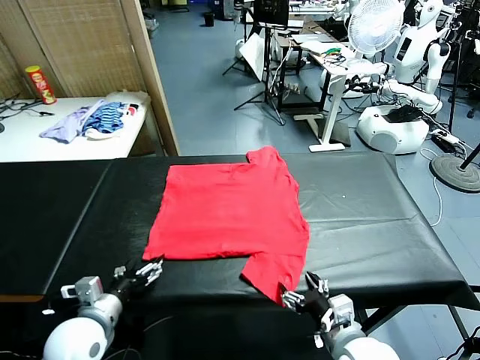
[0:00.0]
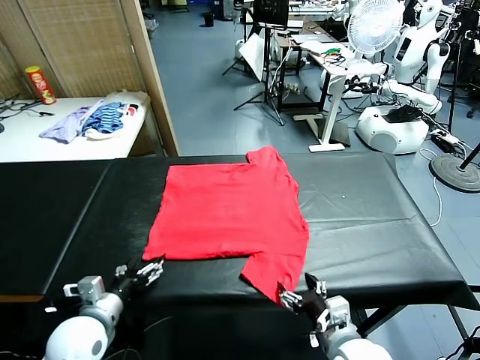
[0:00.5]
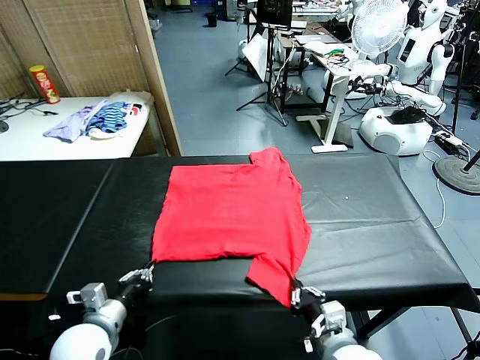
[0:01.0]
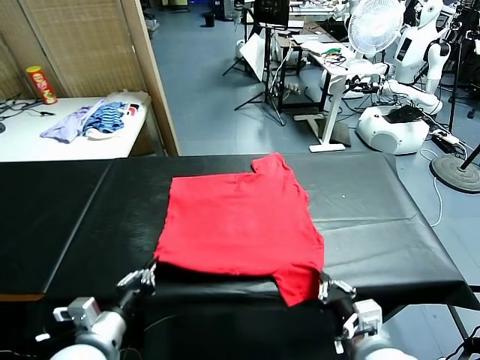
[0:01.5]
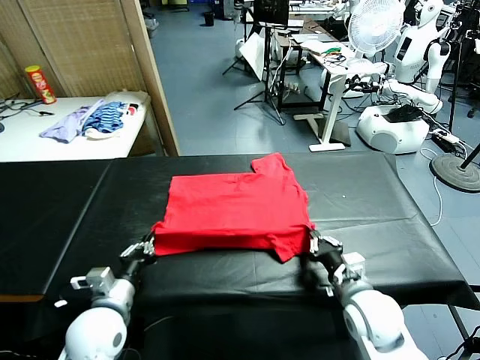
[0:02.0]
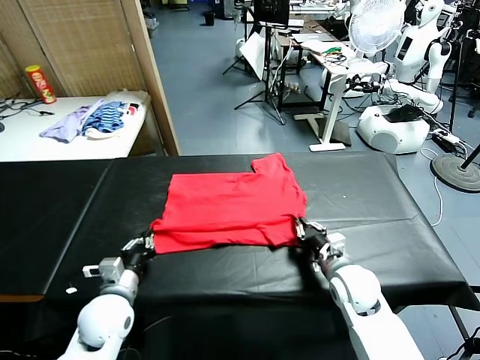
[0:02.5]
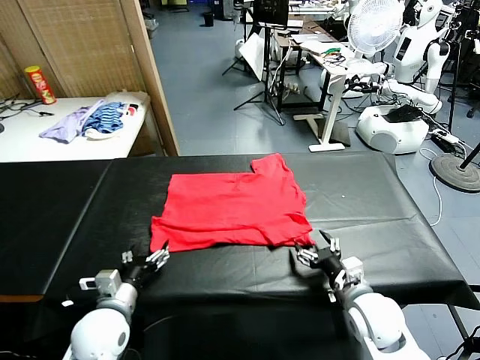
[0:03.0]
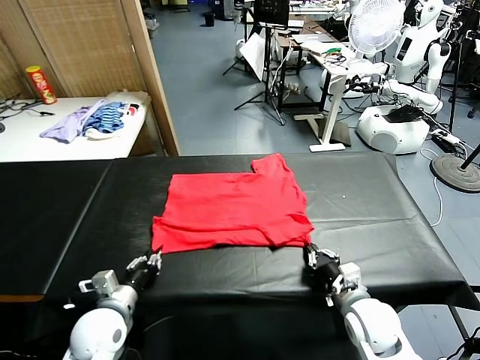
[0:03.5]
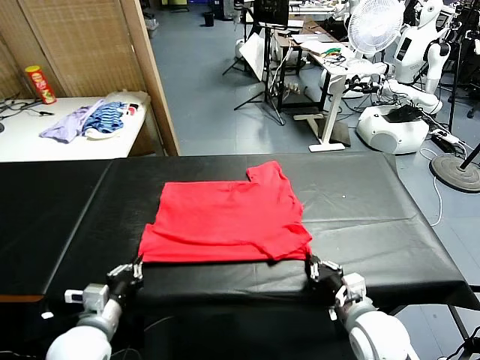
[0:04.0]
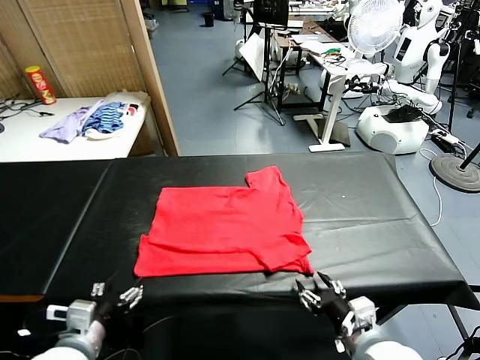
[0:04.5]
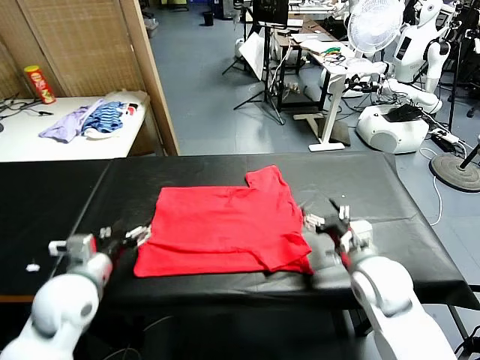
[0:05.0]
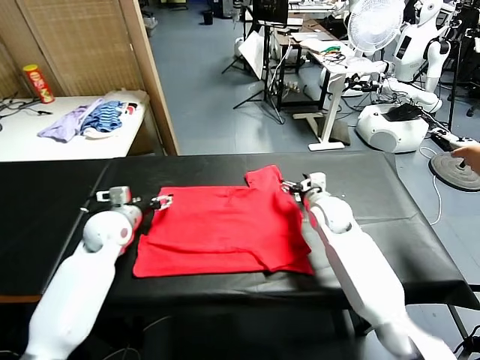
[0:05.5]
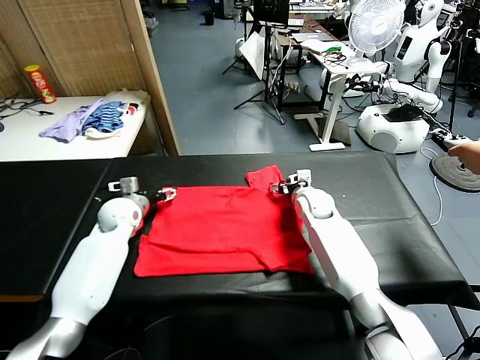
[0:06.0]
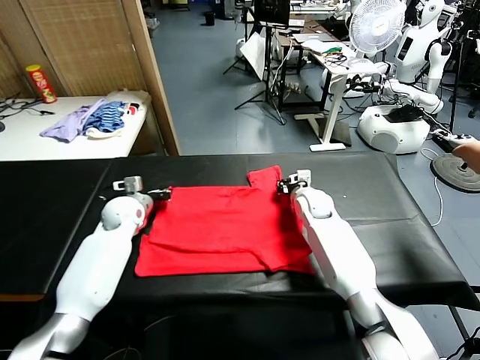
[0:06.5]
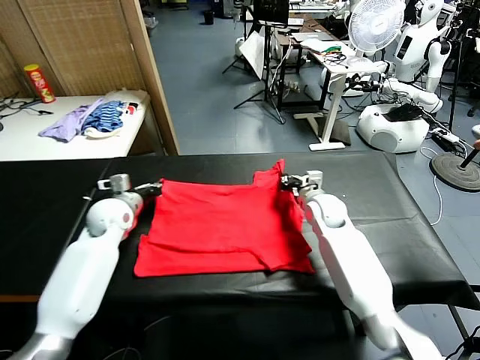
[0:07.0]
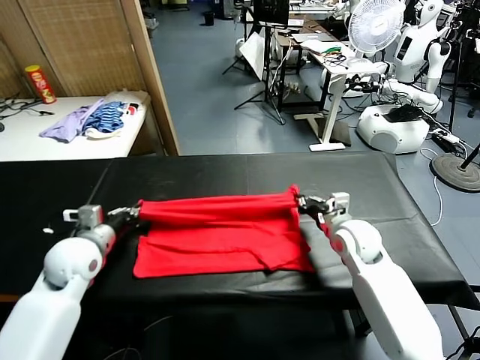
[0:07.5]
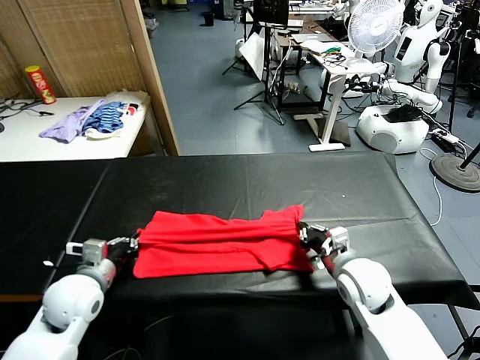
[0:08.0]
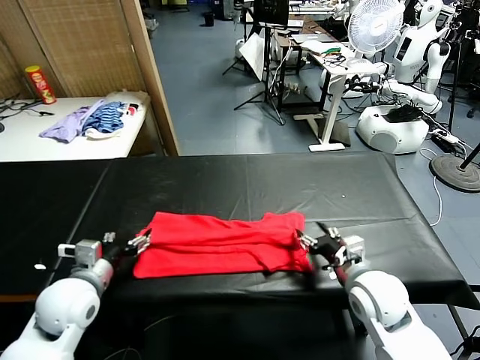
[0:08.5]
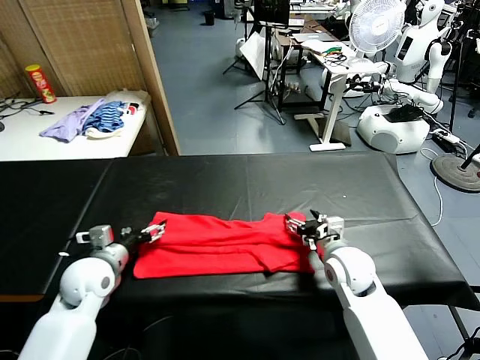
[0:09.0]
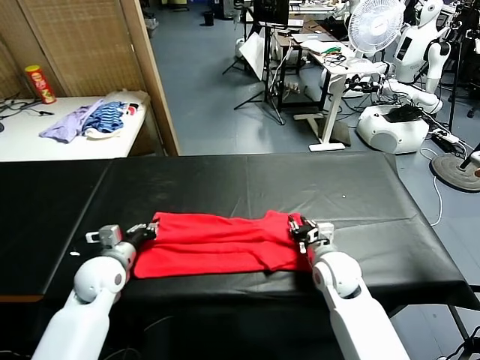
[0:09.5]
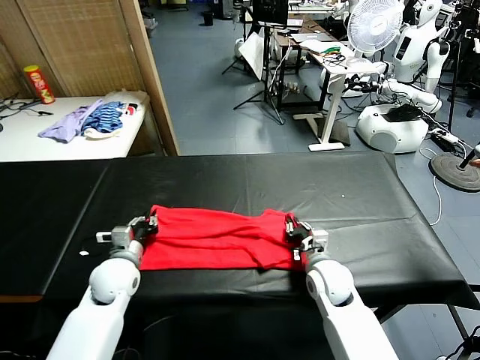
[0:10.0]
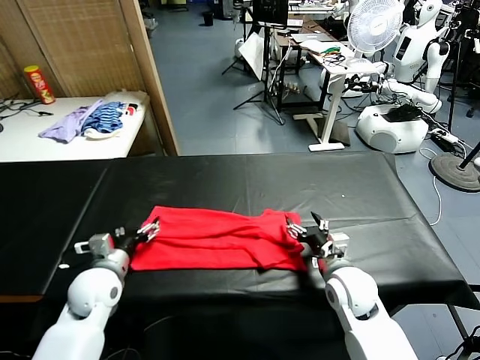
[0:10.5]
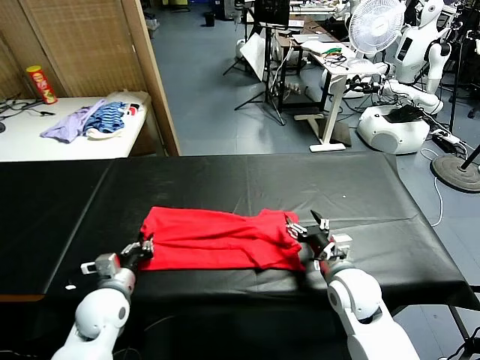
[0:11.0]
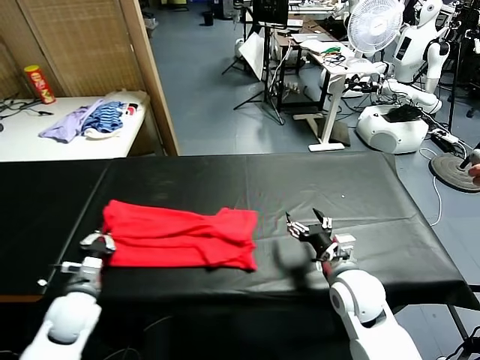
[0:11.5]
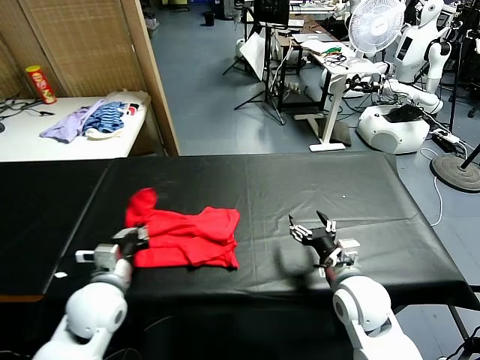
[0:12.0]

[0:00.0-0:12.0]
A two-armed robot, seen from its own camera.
Task of the whole recording: fold and organize the clothes.
Step, 0.0 to 1.0 s: use both grippers simultaneously to clamp the lower edge of the clothing fabric.
Step, 1.5 to 2.5 s: use both grippers to drag the lower edge of the fabric forward and fold it over the upper edge.
Step, 3.0 to 4.0 s: Drag the clothes downward with both gripper.
Step, 4.5 to 6.5 s: use both grippers simultaneously to clamp the upper edge of the clothing fabric.
Step, 7.0 to 8.0 s: use both grippers to drag the upper edge of the fabric backward and fold it over the lower edge.
Step, 8.5 to 11.0 s: use the left gripper to clamp the left edge of the fabric.
2.0 to 4.0 s: The left gripper shifts approximately 5 cm backward, and opens and closes again, while the right gripper moves backward, some 10 cm, and opens, then closes once more.
4.0 to 6.0 s: The grippers both shift forward by some 35 cm. The right gripper opens up; the left gripper opens its fingers.
6.0 to 8.0 s: The grippers both shift backward by some 25 cm. The right gripper closes. Meanwhile the left gripper closes up.
8.0 to 10.0 s: The left gripper travels forward and downward by some 10 cm, and opens, then closes again, while the right gripper heads downward, covering some 5 cm, and opens its fingers.
10.0 to 12.0 s: Both grippers travel together backward and upward, some 10 cm. The left gripper goes to the left and returns, roughly 10 cm each way, and opens and closes again. The right gripper opens.

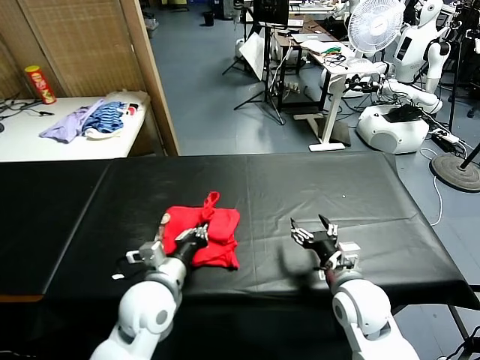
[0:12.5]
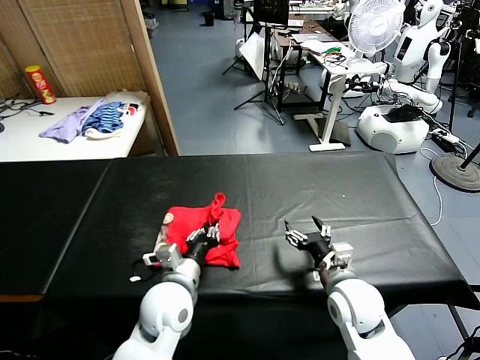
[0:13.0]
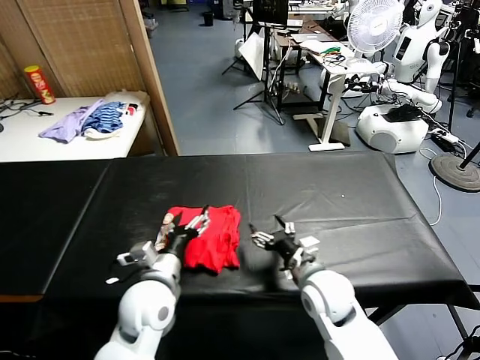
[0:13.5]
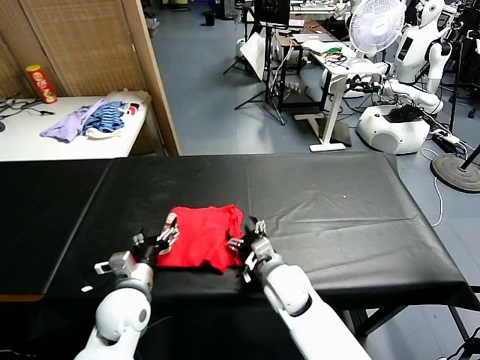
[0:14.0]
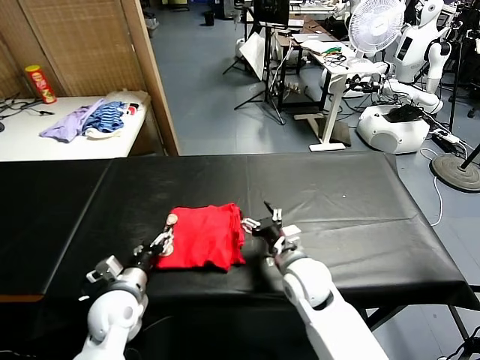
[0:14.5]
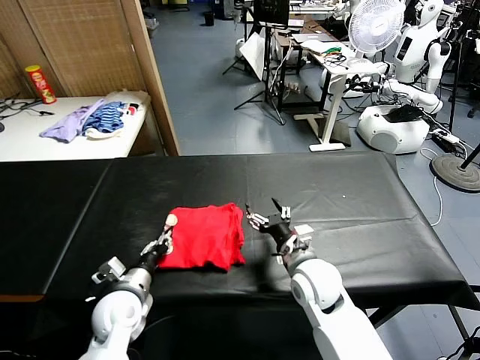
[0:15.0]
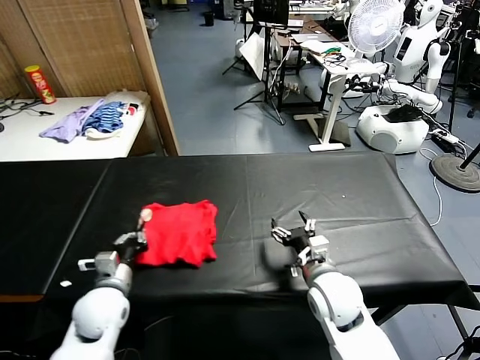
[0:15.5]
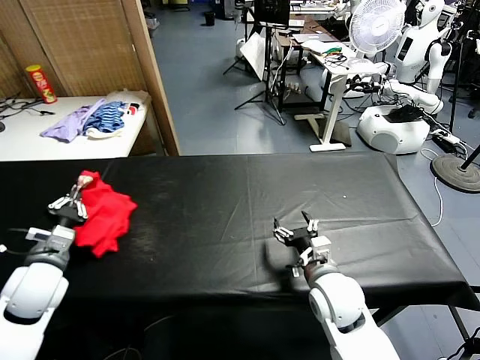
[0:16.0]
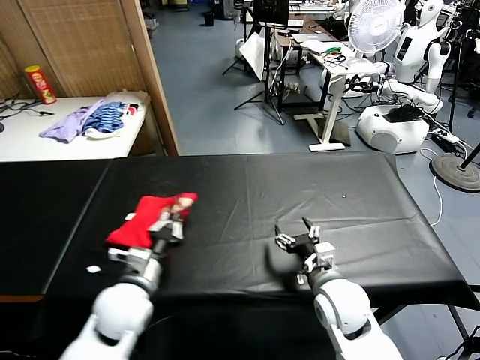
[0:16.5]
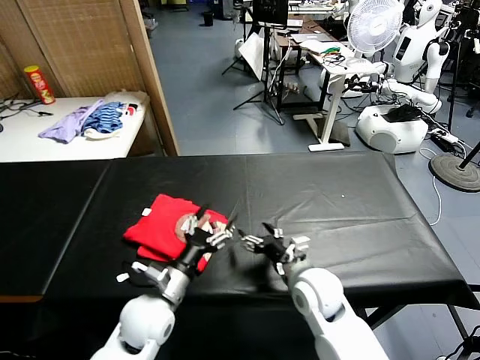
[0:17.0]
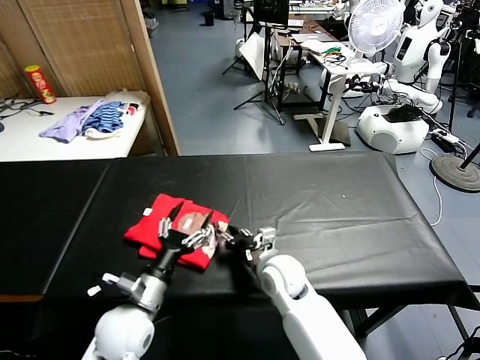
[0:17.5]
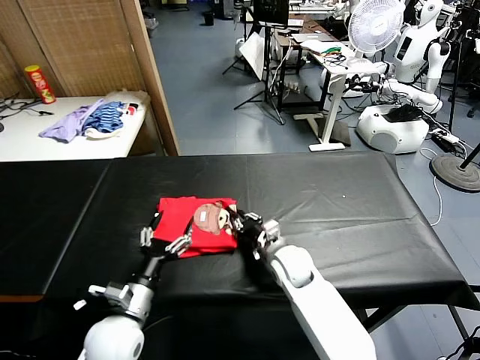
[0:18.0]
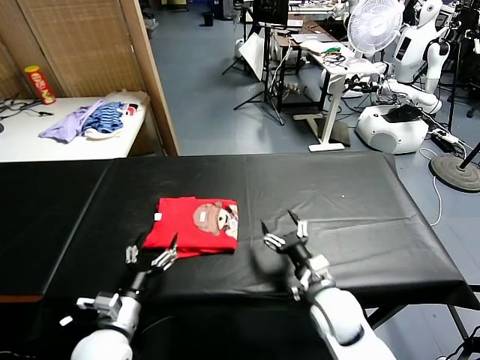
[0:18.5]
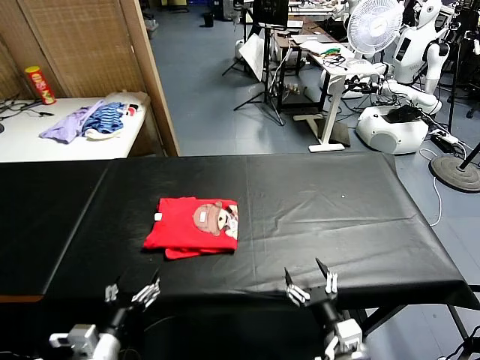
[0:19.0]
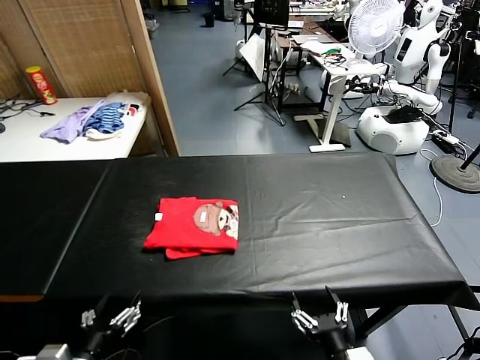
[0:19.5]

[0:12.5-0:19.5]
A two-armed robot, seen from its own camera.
Task of the whole recording: fold and organize the clothes.
Step, 13.5 to 16.5 s: Flip the folded clothes over with left gripper.
Step, 17.0 to 18.0 s: Drag the clothes to the center of the table.
12.5 to 14.5 s: The left gripper is displaced to the left and downward by roughly 10 cm, and opens, while the right gripper moves to the left and forward, about 10 cm.
14.5 to 16.0 s: The left gripper is displaced to the left and upward by some 15 cm, and closes up, while the right gripper shifts by roughly 5 cm.
16.0 to 17.5 s: The right gripper shifts roughly 10 cm to the left and forward; the left gripper moves to the right, some 15 cm, and opens its fingers.
17.5 to 19.5 s: The right gripper goes some 30 cm backward and to the right, and closes, then opens again. The left gripper moves backward and to the left, about 15 cm.

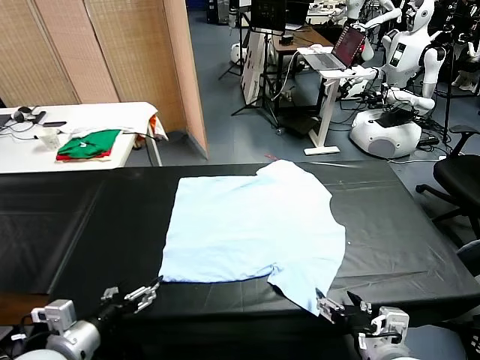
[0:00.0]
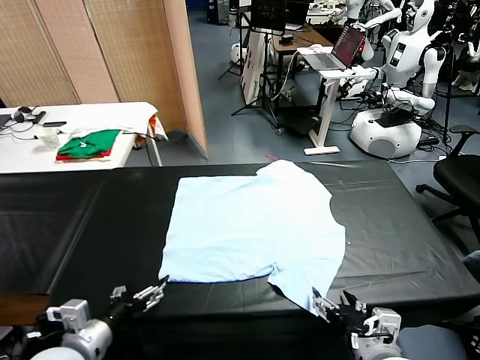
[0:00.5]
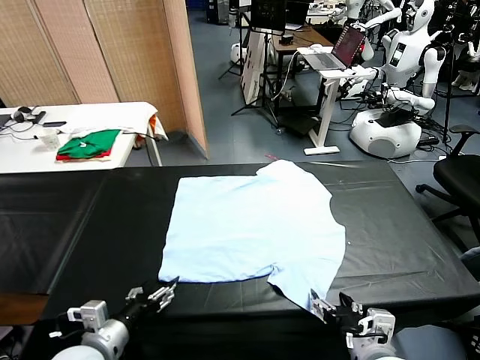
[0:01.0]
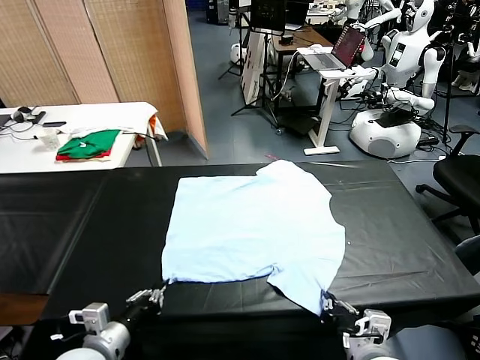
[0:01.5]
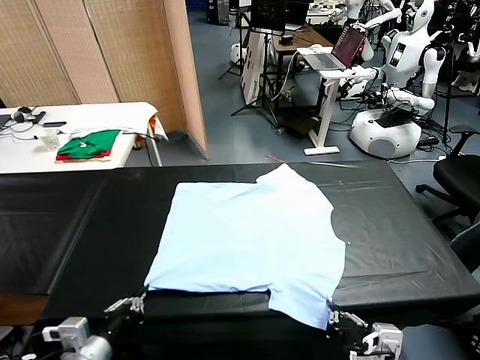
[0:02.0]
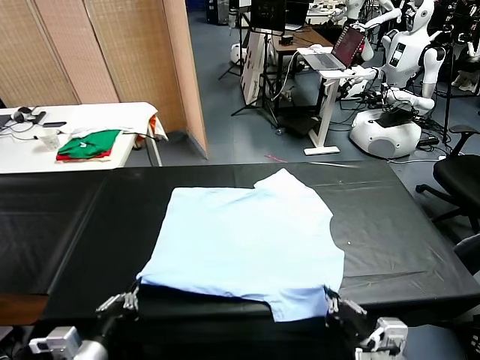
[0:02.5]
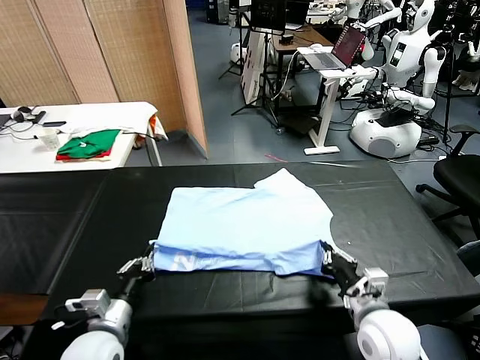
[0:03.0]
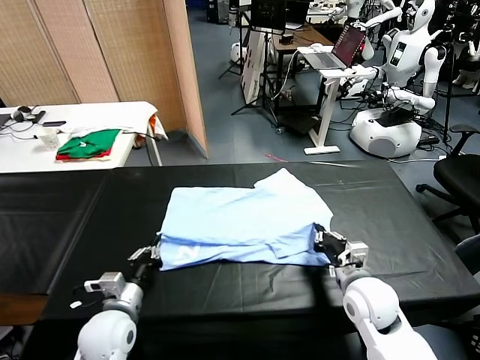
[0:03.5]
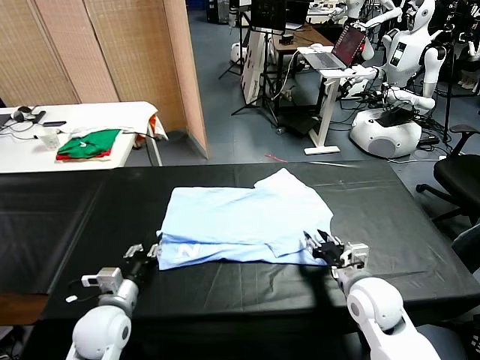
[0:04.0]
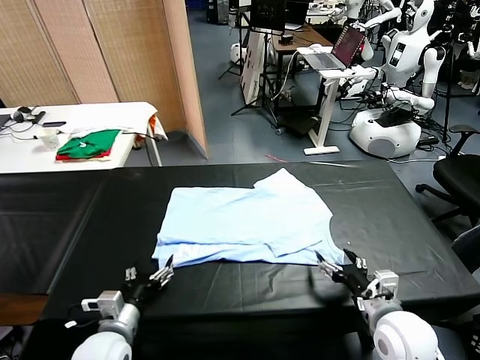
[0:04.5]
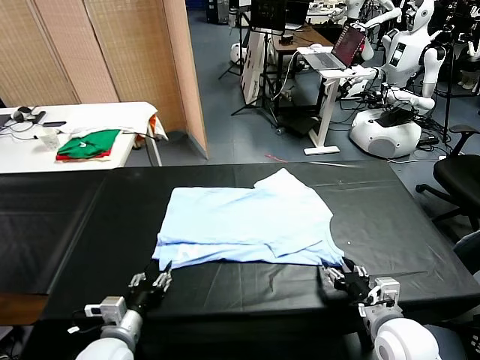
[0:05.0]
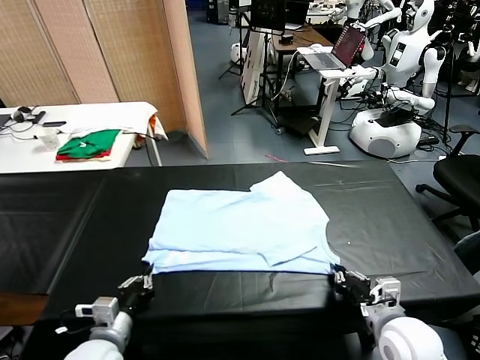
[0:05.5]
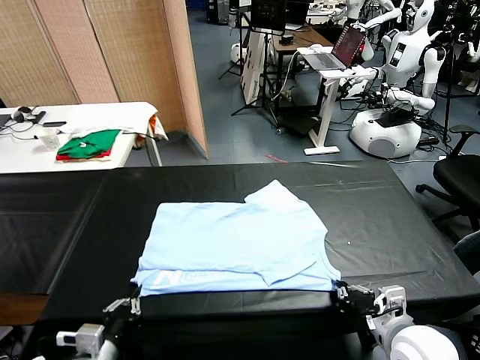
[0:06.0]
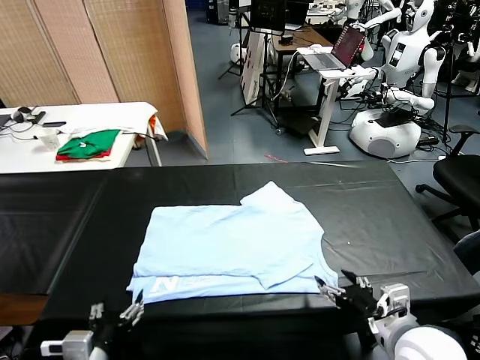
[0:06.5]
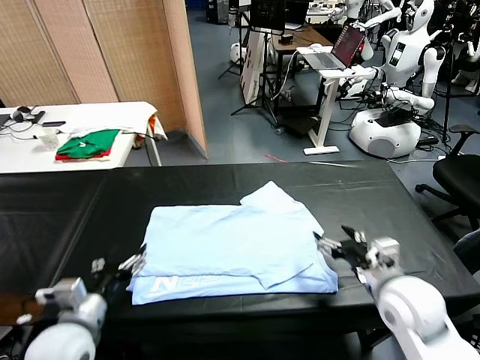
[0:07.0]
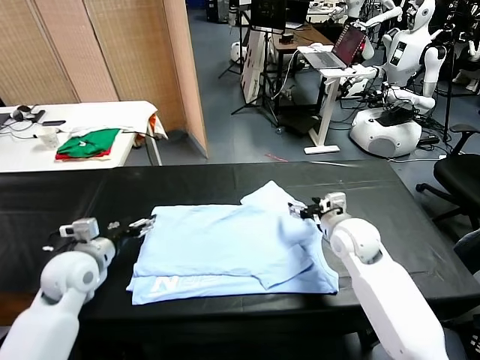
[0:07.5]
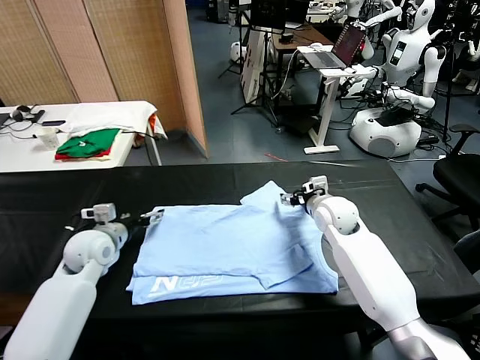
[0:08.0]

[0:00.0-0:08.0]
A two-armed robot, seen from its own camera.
Task of the whole recording: fold and organize the clothes.
Step, 0.0 to 1.5 s: use both grippers simultaneously to clamp the lower edge of the clothing fabric.
Step, 2.0 to 4.0 s: use both grippers to drag the lower edge of the fabric forward and fold it over the upper edge.
Step, 4.5 to 6.0 s: Drag the clothes downward with both gripper.
2.0 to 4.0 s: The left gripper goes approximately 15 cm forward and downward, and opens, while the right gripper moves forward and to the right, roughly 15 cm, and opens.
4.0 to 6.0 s: The right gripper heads backward, covering approximately 5 cm, and closes up; the left gripper goes some 10 cm backward, and closes its fingers.
6.0 to 8.0 s: The two grippers go approximately 30 cm forward. The left gripper opens its fingers. Meanwhile the right gripper opens its fingers.
